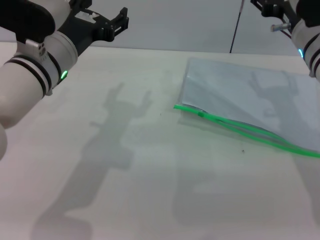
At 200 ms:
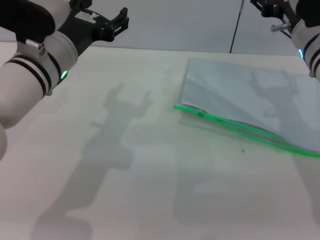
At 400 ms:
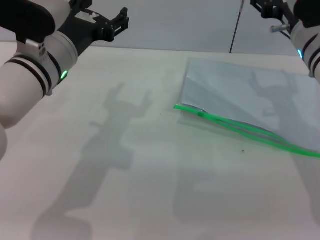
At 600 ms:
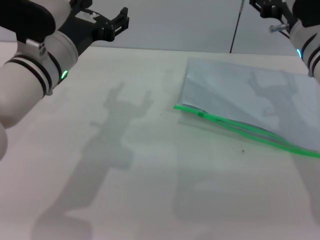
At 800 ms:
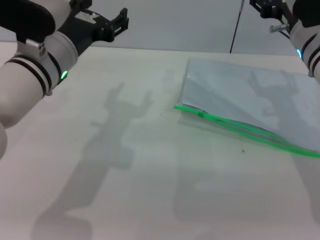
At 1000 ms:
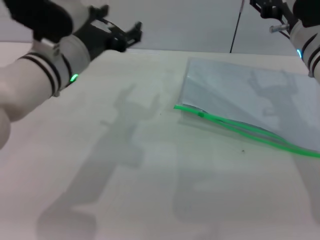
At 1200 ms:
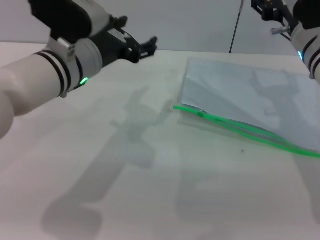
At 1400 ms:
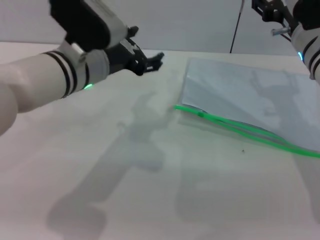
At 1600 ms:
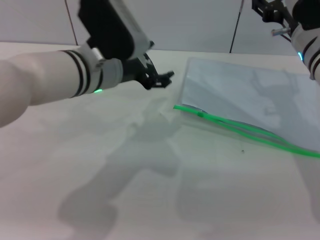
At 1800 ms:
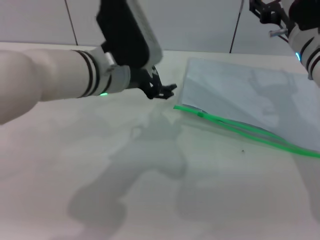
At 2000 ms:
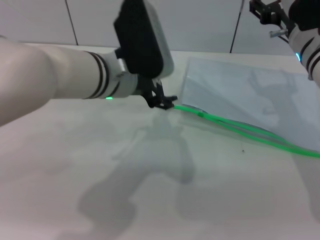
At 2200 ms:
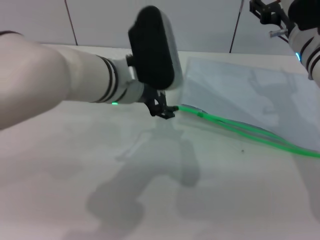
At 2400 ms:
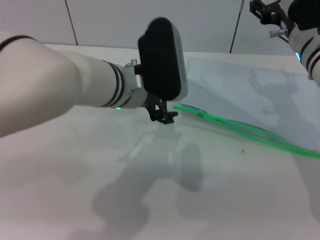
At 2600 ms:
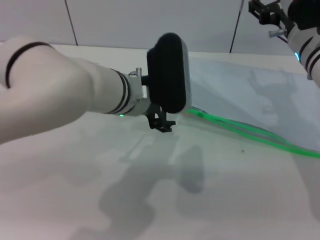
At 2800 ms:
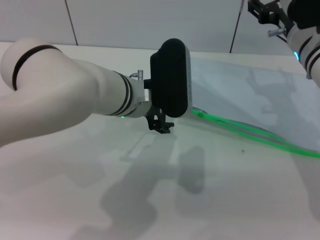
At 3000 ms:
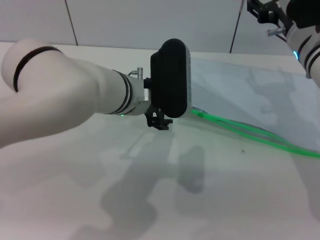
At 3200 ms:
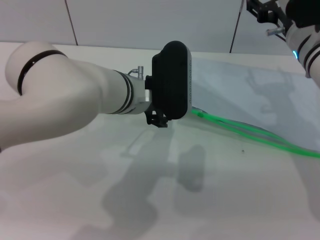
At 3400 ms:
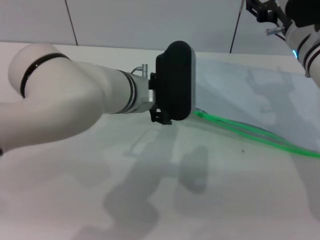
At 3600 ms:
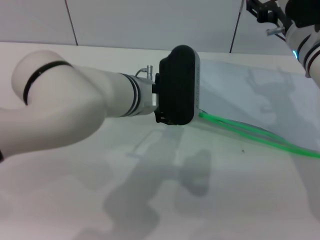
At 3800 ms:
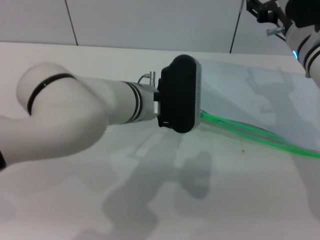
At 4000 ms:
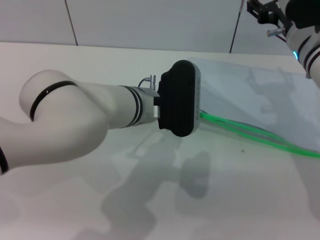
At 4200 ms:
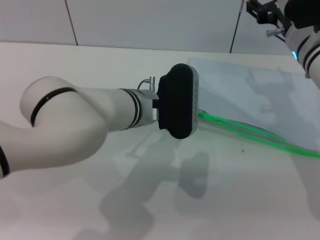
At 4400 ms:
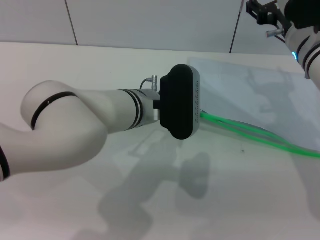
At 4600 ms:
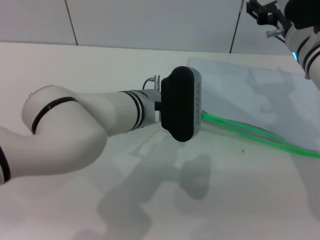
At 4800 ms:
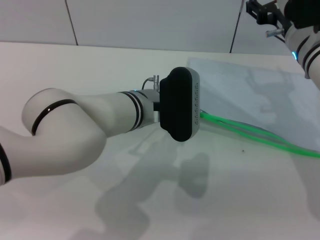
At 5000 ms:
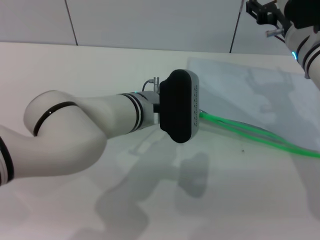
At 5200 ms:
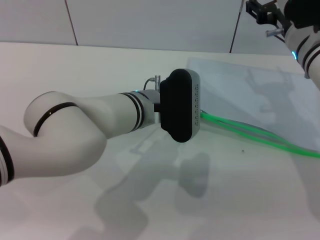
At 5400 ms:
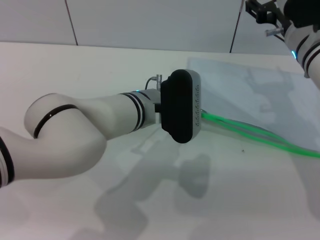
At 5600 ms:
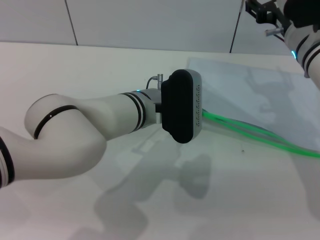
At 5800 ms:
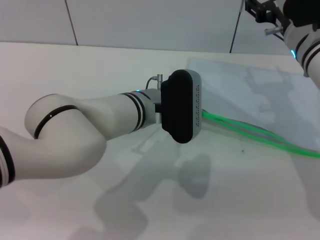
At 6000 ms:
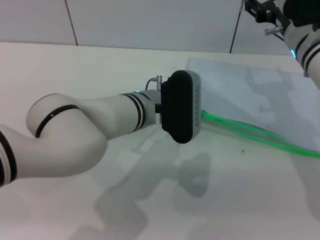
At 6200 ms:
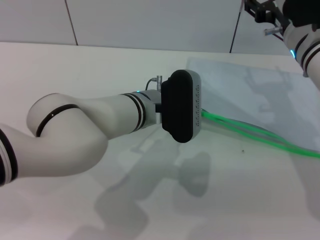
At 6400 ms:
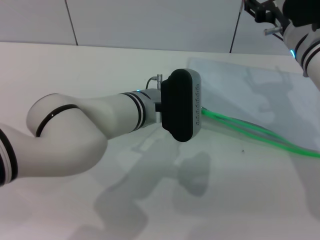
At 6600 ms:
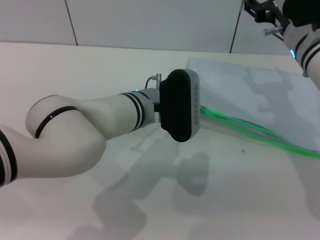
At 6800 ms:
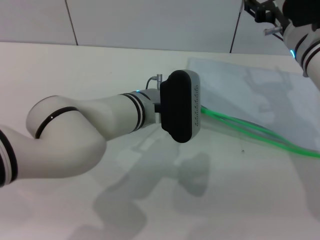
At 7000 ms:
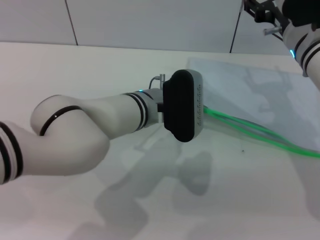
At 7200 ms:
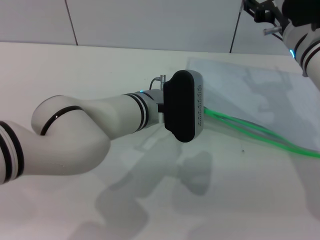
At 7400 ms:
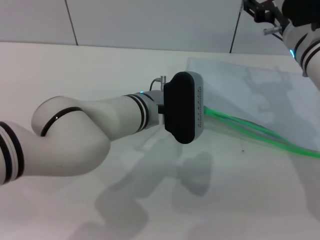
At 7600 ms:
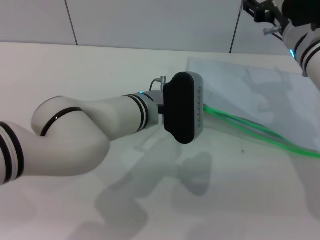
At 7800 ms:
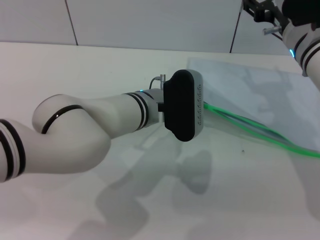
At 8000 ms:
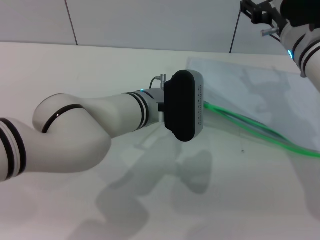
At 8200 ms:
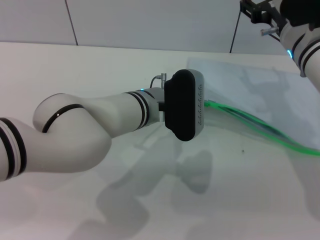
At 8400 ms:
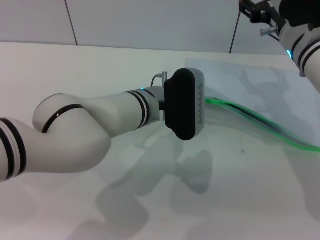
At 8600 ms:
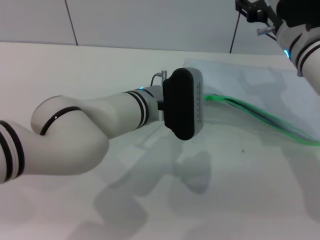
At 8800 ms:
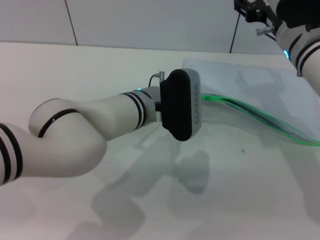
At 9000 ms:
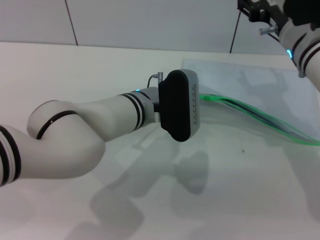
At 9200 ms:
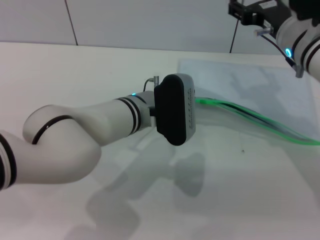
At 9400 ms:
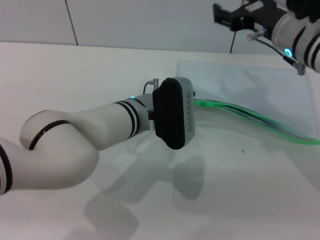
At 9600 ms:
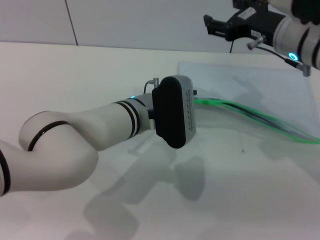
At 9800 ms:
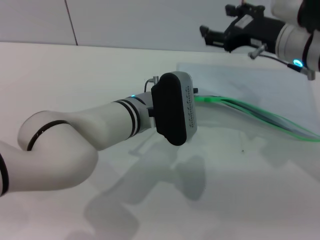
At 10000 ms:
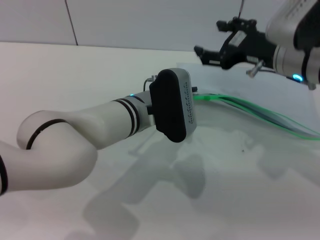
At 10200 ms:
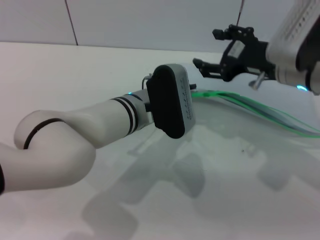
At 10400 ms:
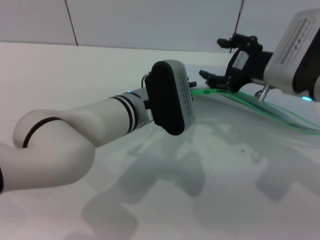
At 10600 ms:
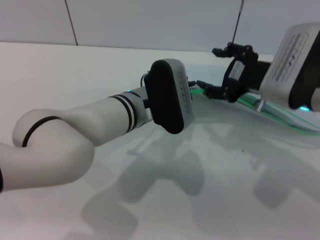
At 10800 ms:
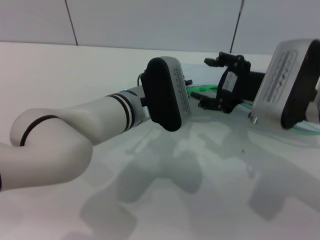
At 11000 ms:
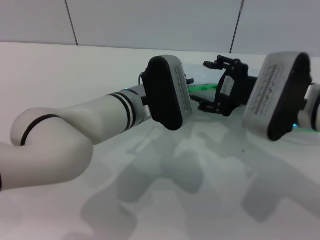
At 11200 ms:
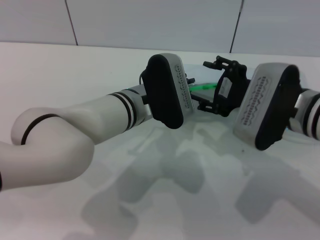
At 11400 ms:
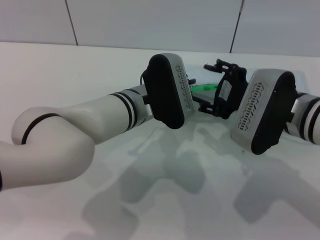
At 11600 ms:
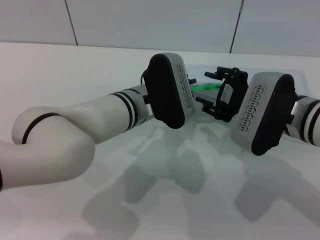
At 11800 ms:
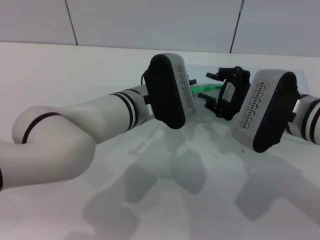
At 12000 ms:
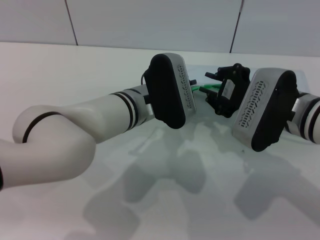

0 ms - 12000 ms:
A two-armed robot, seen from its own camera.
Step, 0 ms - 10000 ms: Pick up the transparent plastic bag with the left gripper.
1600 ms - 3000 ms: The left gripper moves some 5 cm.
3000 ms - 6000 ms: There are only small adjustments of the grippers.
6000 ms - 7600 ms: The left gripper closes its fingers.
7600 ms - 9000 ms: The left gripper closes its fingers.
9000 ms - 10400 ms: The right gripper travels backward by some 5 cm.
10400 ms - 12000 ms: The right gripper changes place by about 5 cm, and closes up.

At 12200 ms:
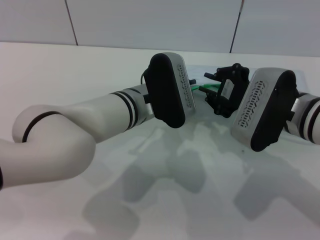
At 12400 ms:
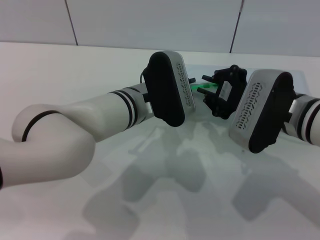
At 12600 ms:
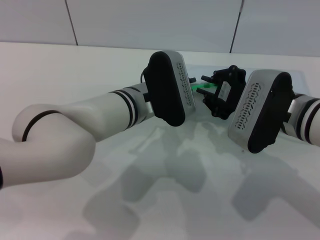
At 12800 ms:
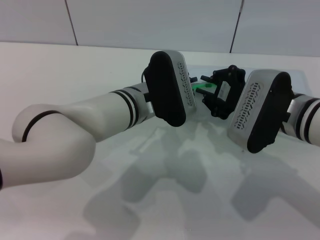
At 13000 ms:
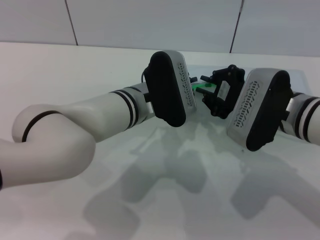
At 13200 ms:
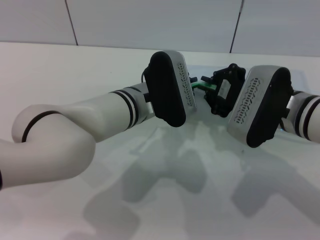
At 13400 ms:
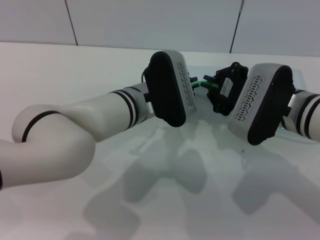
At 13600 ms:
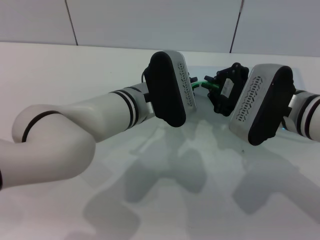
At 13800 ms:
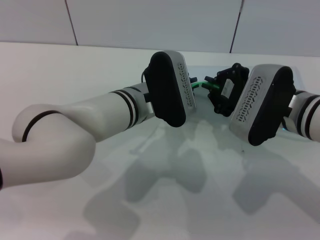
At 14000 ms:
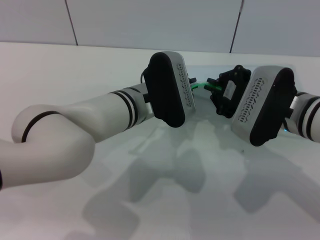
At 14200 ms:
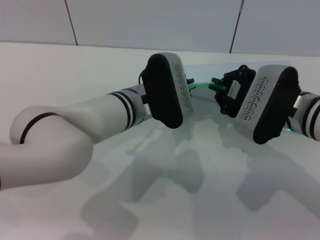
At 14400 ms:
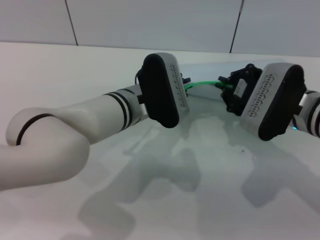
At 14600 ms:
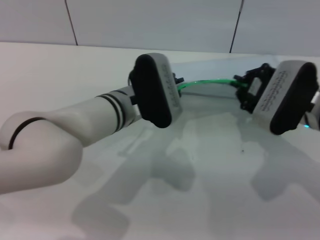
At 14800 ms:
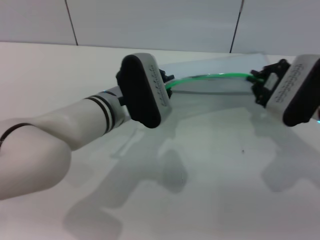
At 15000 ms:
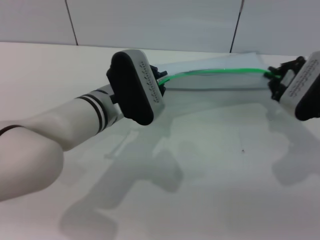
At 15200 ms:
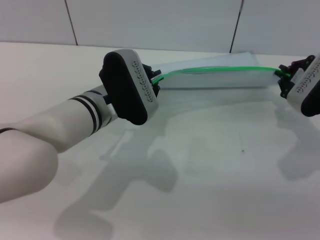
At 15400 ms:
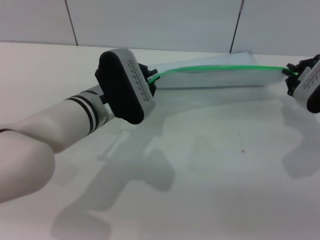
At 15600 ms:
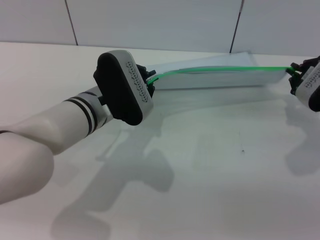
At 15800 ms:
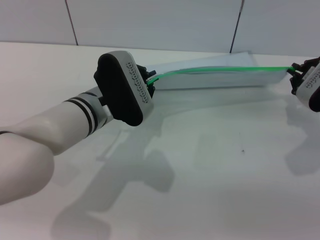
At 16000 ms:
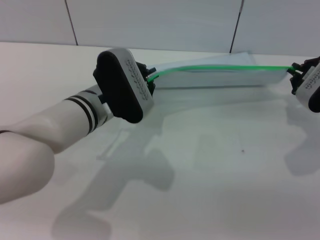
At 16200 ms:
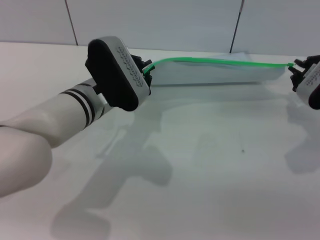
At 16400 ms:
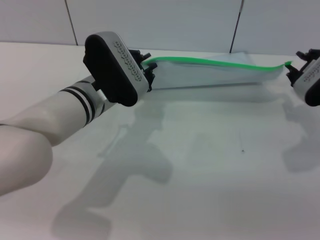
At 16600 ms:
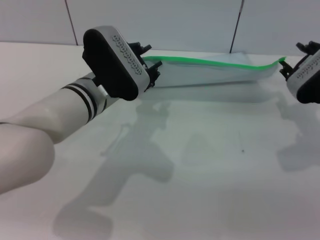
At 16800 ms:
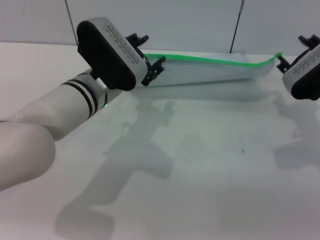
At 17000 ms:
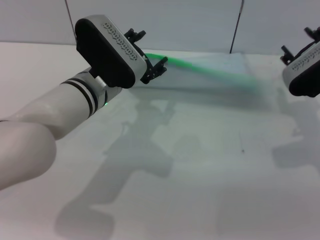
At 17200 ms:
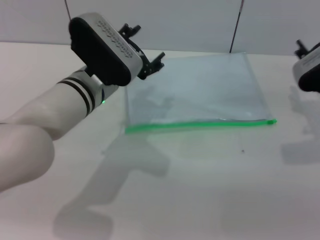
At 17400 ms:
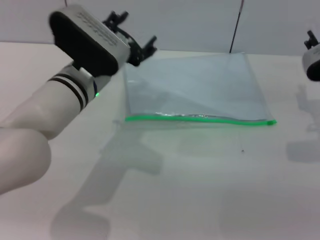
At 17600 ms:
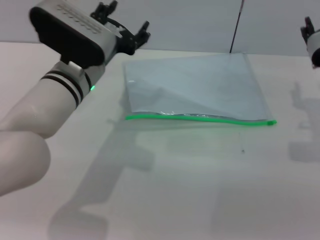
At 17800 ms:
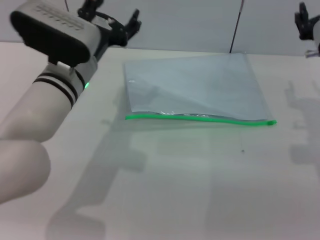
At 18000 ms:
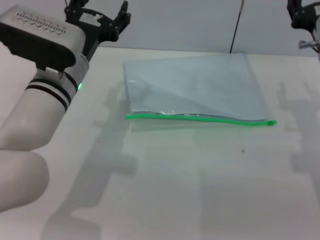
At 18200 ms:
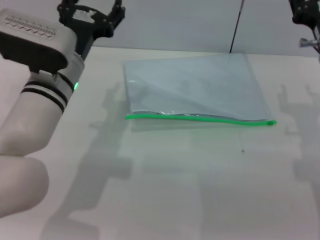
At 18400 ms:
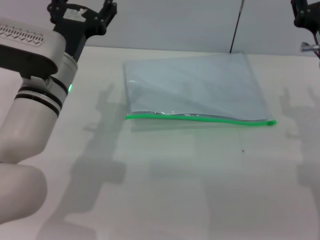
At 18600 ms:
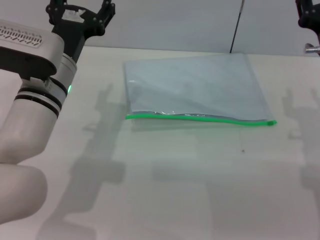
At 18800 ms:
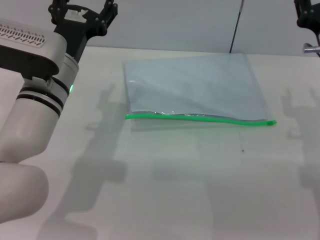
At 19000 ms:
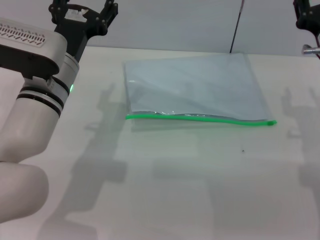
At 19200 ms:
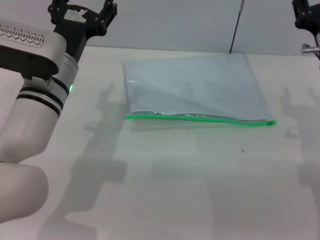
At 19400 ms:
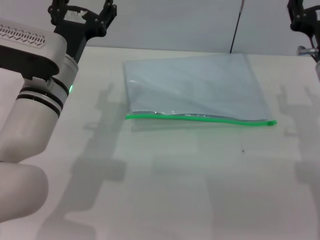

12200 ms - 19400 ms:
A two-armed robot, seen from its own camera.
Step, 12200 ms - 16200 ms: Pulling up the zipper on the transparent plastic bag with the right gripper to close it.
Step, 16400 ms - 17400 ms: Place the transparent plastic bag.
12200 ms - 13600 ms: Neither gripper changes place.
13600 ms - 15000 ms: The right gripper travels to the right by approximately 10 cm.
15000 ms - 16600 ms: There are only small adjustments of the grippers.
16600 ms - 18000 ms: The left gripper opens its fingers; the right gripper moves about 5 cm, and opens its fingers.
18000 ms - 19400 ms: The grippers make only small movements.
